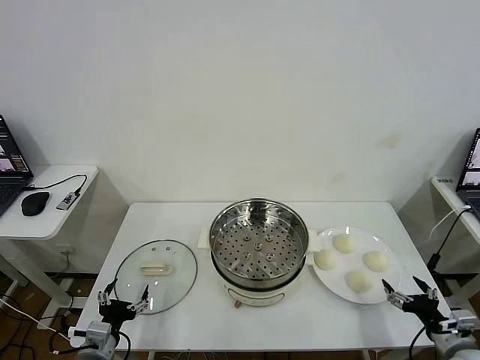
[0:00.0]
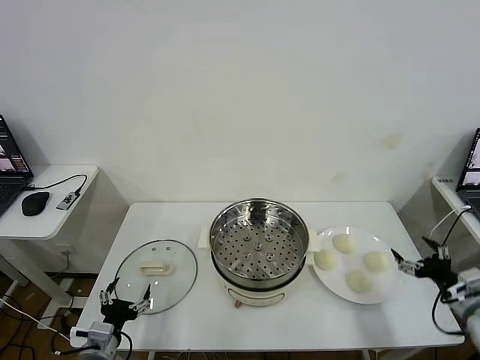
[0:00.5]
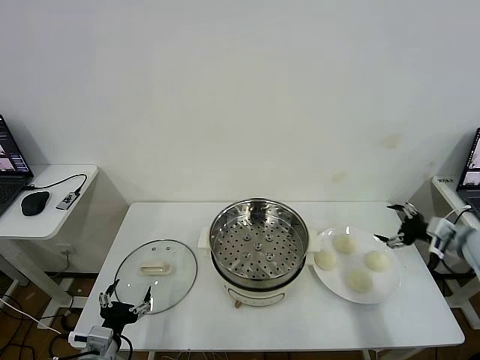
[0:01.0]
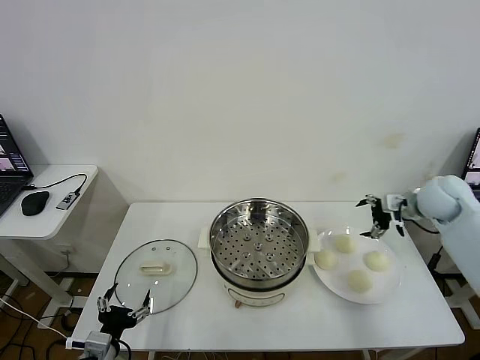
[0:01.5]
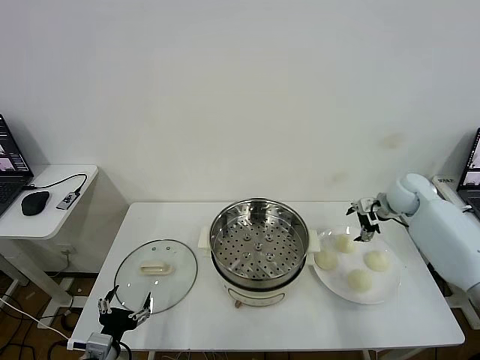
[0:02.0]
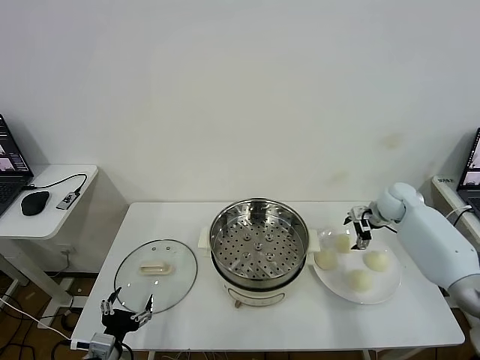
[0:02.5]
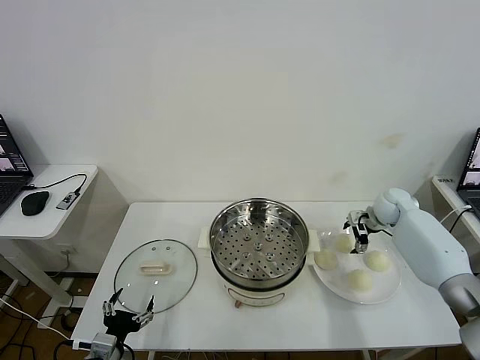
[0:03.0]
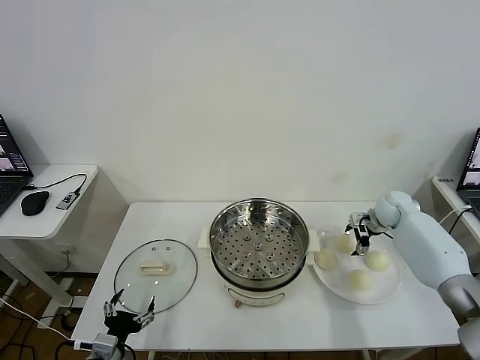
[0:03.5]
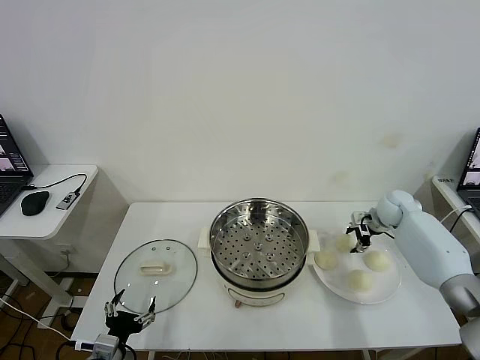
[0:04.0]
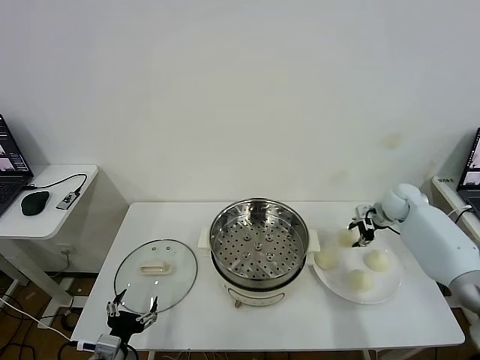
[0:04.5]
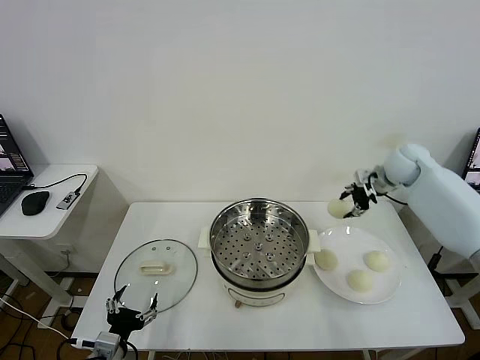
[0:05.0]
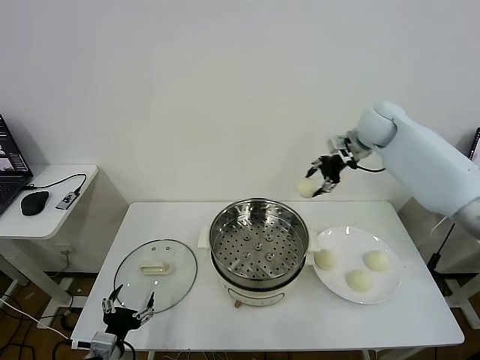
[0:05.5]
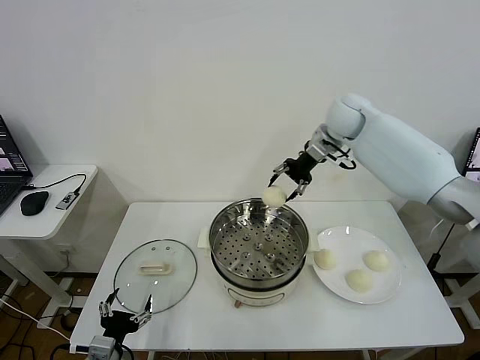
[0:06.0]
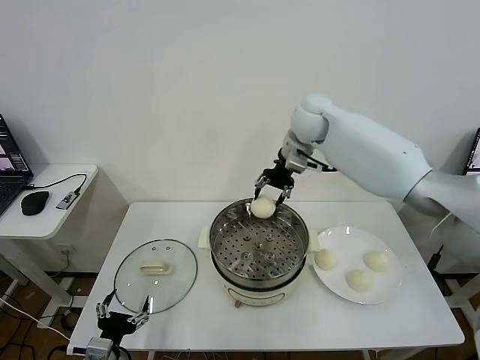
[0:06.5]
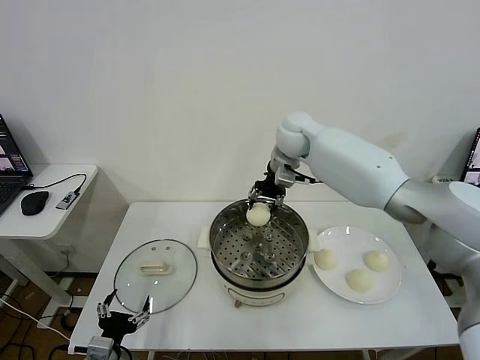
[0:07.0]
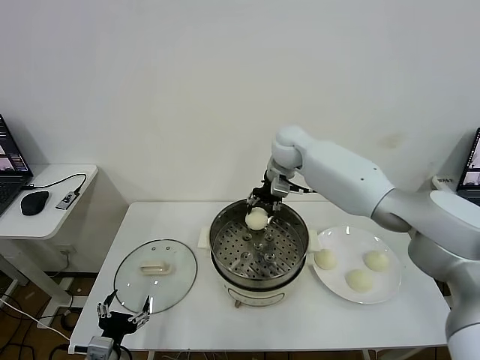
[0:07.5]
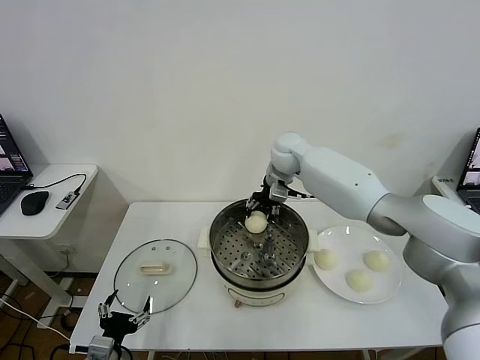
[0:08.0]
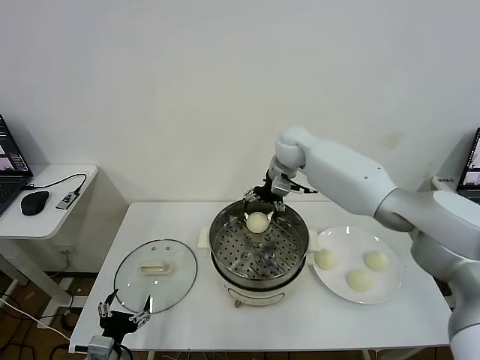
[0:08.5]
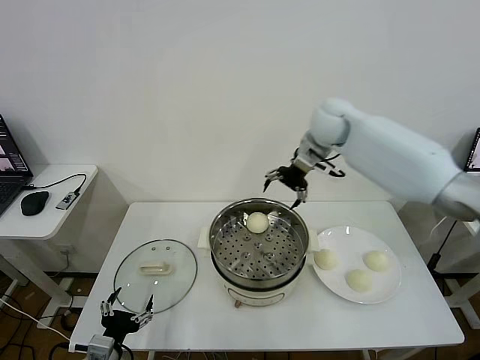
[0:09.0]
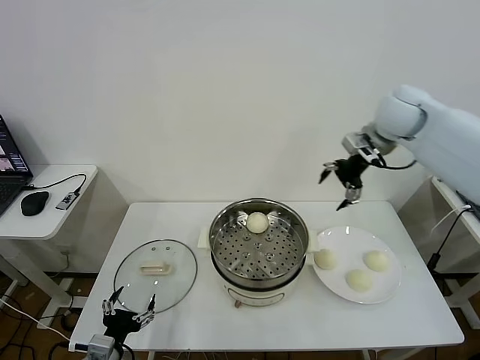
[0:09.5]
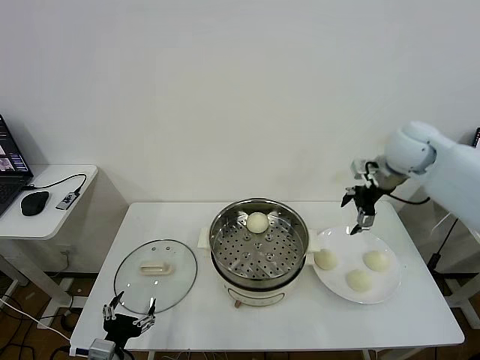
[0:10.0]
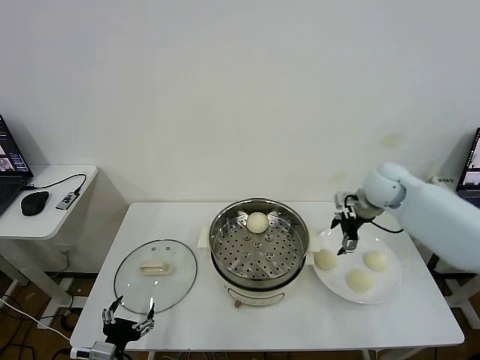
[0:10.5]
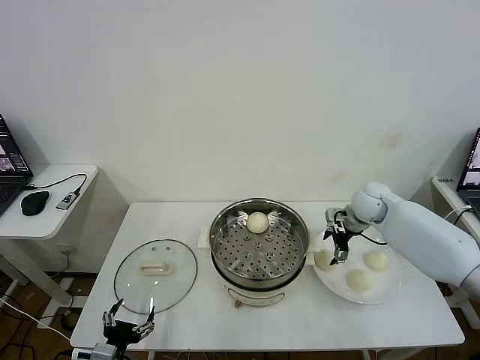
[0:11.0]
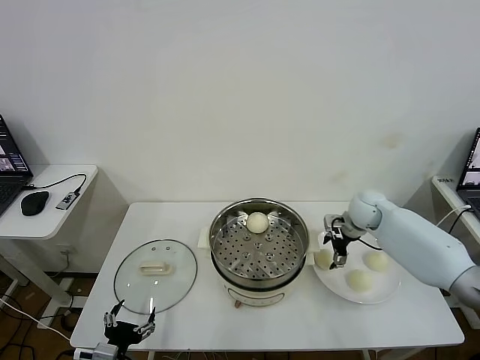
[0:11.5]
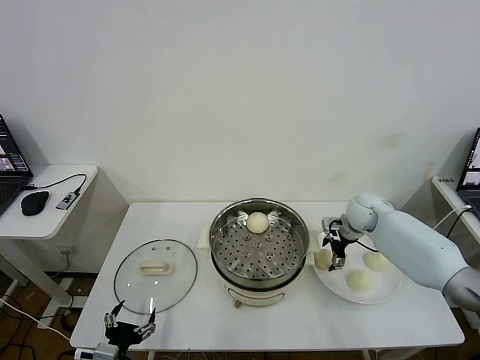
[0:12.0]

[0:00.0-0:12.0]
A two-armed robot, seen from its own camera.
Task of the whole recording: take steamed baozi put them in steamer then cover it.
Step, 0:00.0 to 0:04.0: Grasp the baozi in the plate with right gripper.
Step, 0:04.5 to 0:08.0: Place the baozi on the steamer with right gripper.
0:02.0 to 0:04.0: The right gripper is displaced downward by some 5 cm, and closes.
0:04.0 to 0:06.0: The right gripper is displaced upward and to the left by about 30 cm.
0:06.0 to 0:08.0: The right gripper moves downward and to the left, about 15 cm.
0:08.0 to 0:10.0: The right gripper travels to the right and backward by some 25 cm, and opens.
0:10.0 to 0:12.0: The right gripper is displaced downward by some 20 cm.

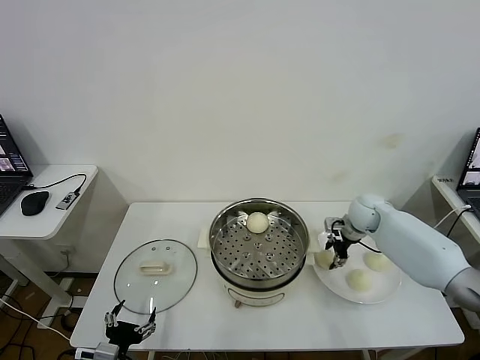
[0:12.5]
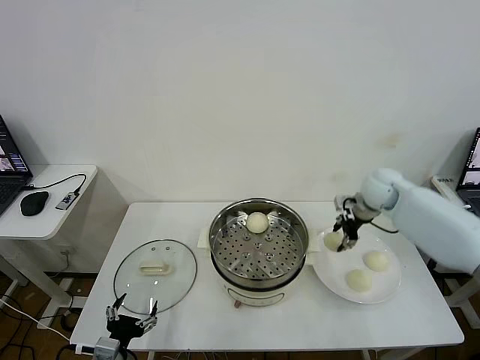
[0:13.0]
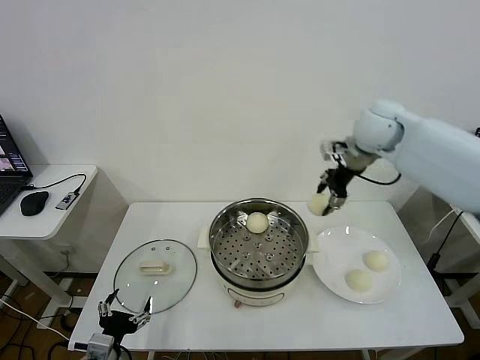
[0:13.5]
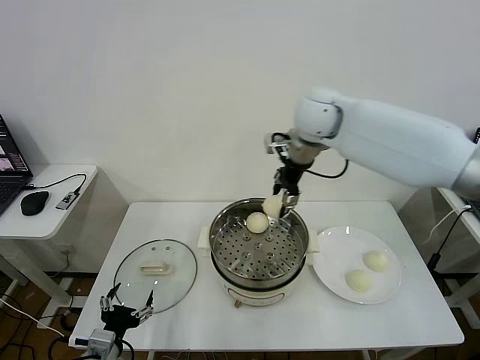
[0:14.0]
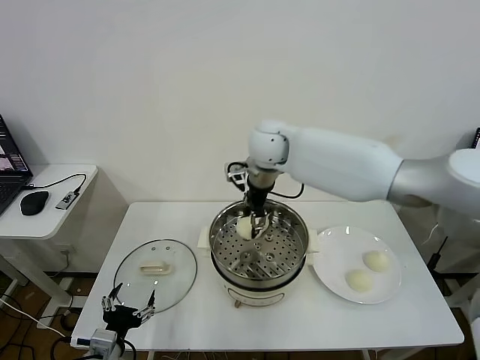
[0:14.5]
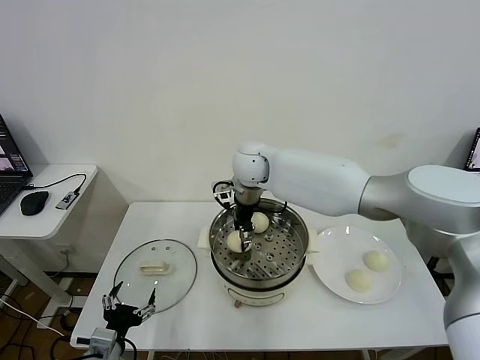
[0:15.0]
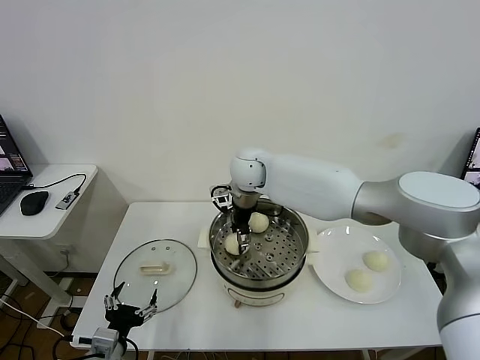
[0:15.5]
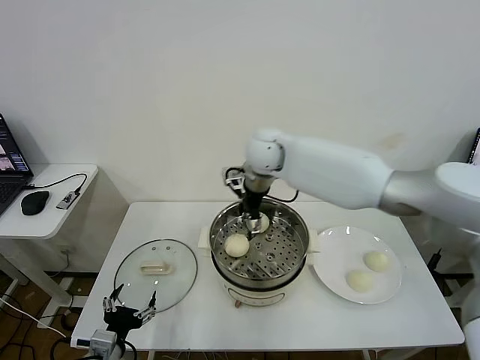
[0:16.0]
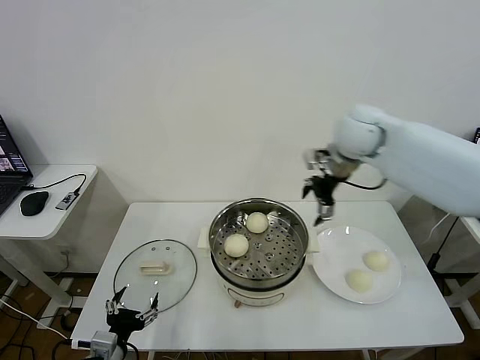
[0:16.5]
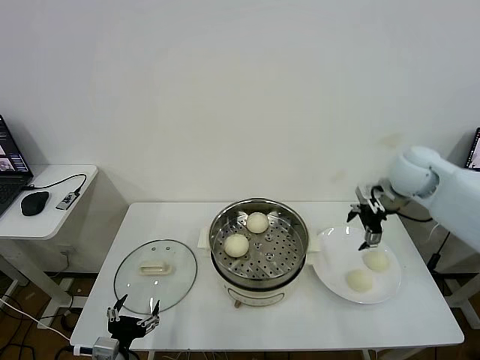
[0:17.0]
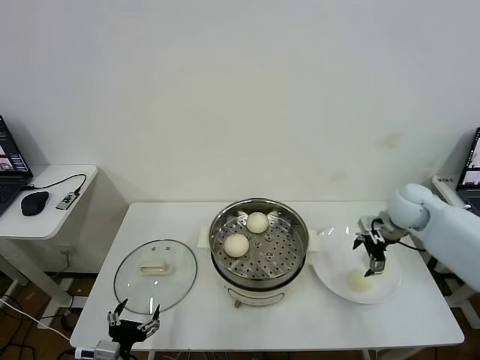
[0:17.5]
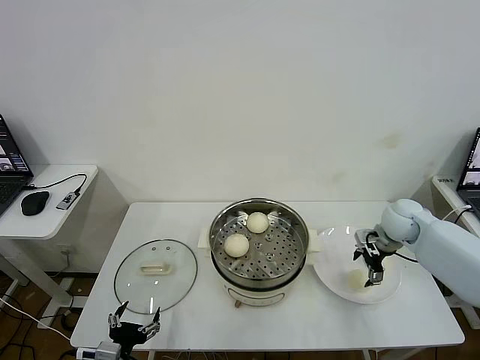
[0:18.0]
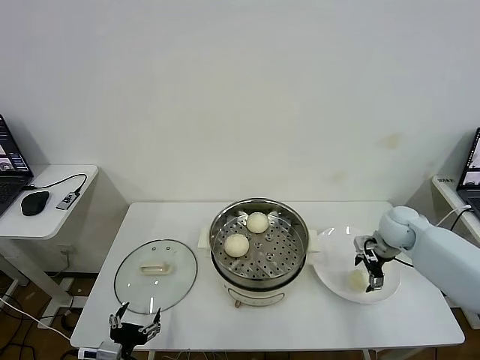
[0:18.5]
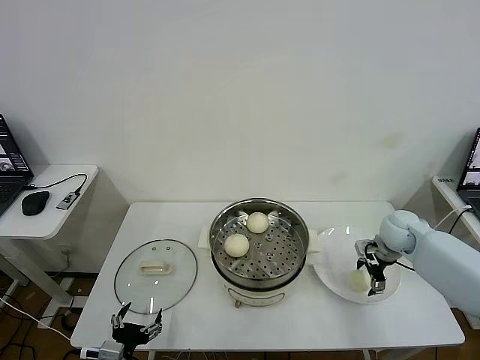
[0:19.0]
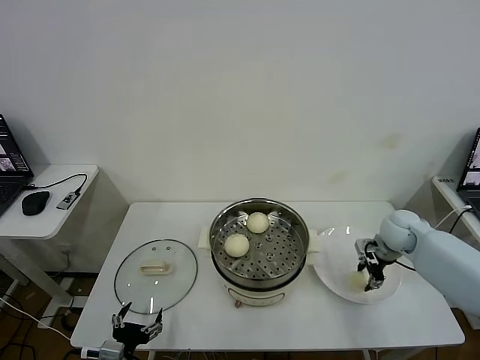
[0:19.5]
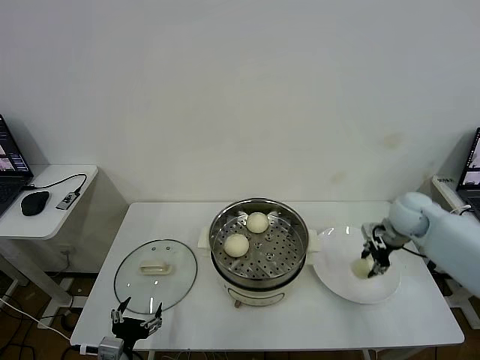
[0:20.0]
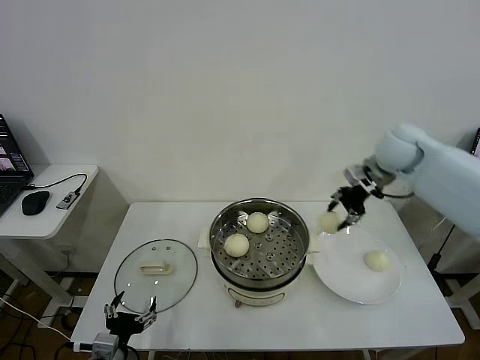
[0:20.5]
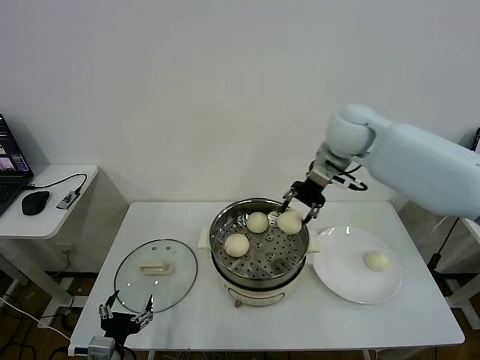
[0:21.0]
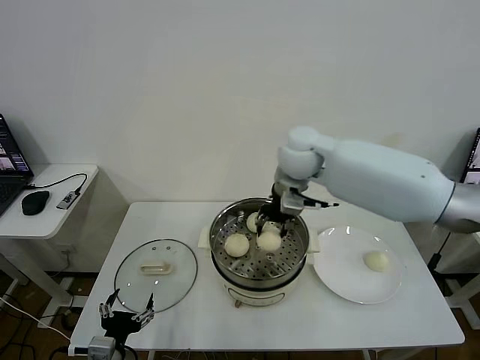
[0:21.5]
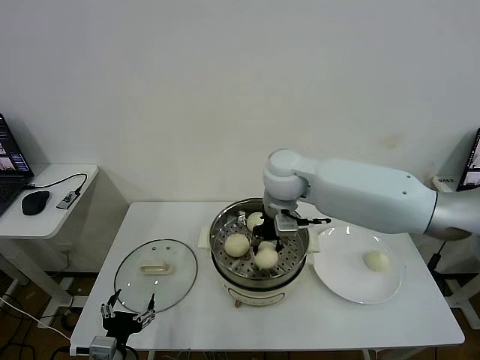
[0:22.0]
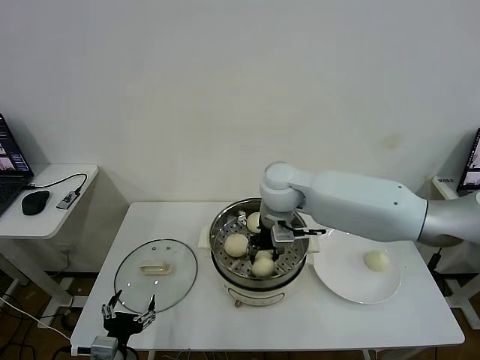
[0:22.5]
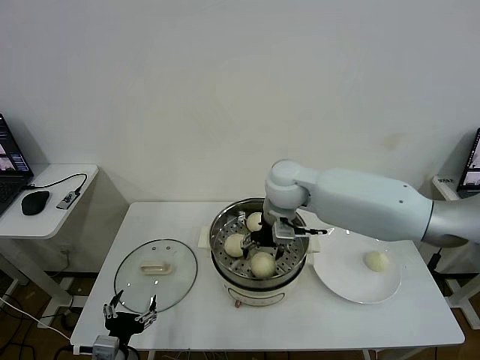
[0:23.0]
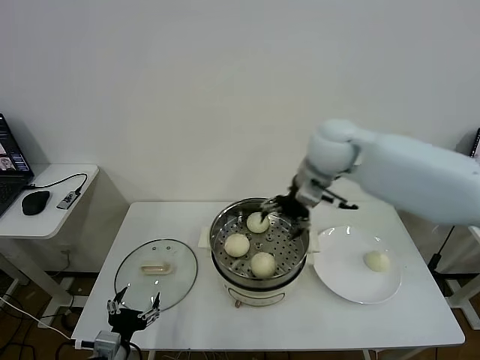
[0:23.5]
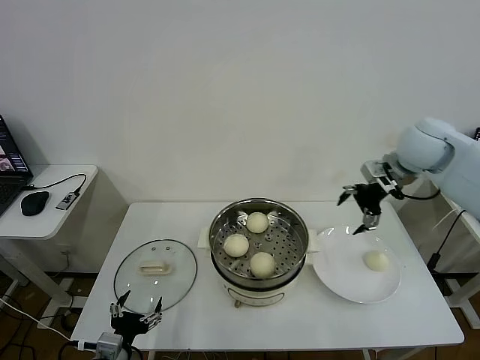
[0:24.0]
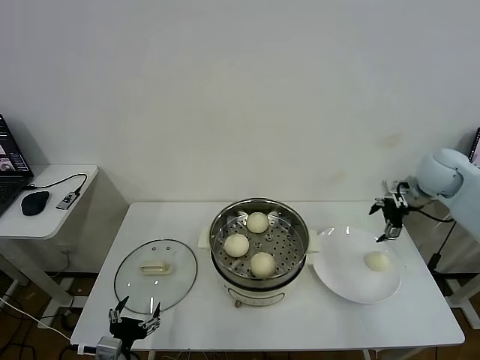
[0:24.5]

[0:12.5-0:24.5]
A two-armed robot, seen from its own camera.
Task of the whole recording: take steamed baozi put them in steamer then cover it.
Step, 0:13.0 to 0:15.5: Place the baozi on the steamer with right gripper.
Step, 0:16.0 to 0:19.5: Grasp the baozi in the plate with right gripper.
Step, 0:20.0 to 0:23.0: Place the baozi on the steamer with right gripper.
0:12.5 to 0:14.5: The right gripper goes some 35 cm to the left and upward.
0:14.5 to 0:16.5: The right gripper travels to the right by some 20 cm, and opens its fingers.
0:16.5 to 0:18.5: The right gripper goes roughly 25 cm downward and to the right.
0:18.5 to 0:20.5: The right gripper shifts about 20 cm upward, and closes.
0:20.5 to 0:22.5: The right gripper shifts about 25 cm to the left.
0:22.5 to 0:24.5: The right gripper is displaced to the right by roughly 35 cm, and opens up.

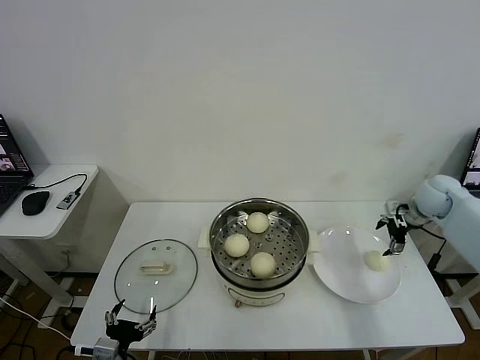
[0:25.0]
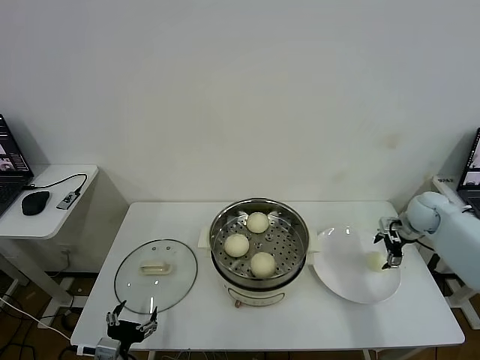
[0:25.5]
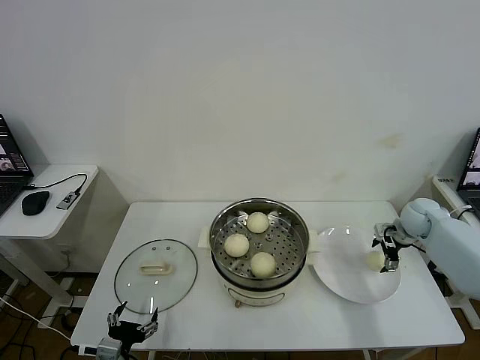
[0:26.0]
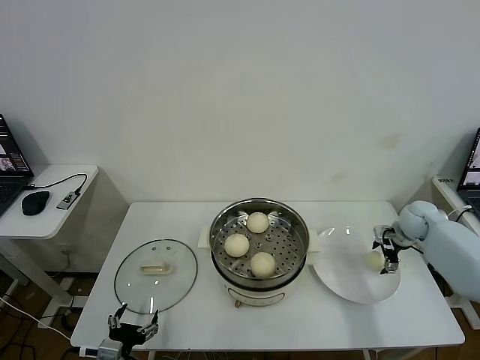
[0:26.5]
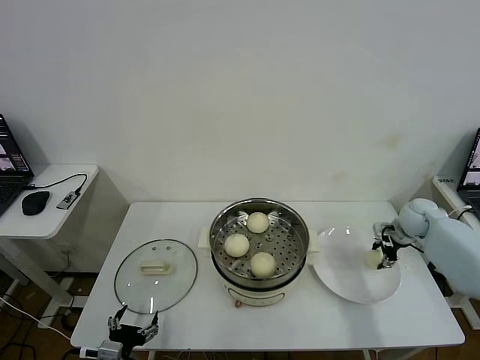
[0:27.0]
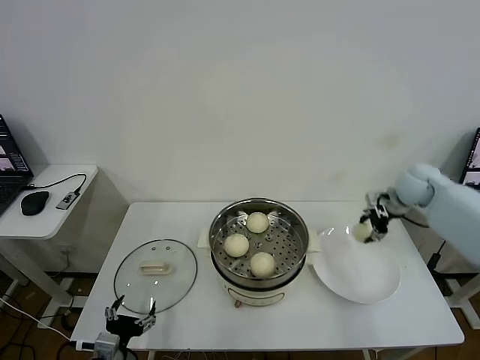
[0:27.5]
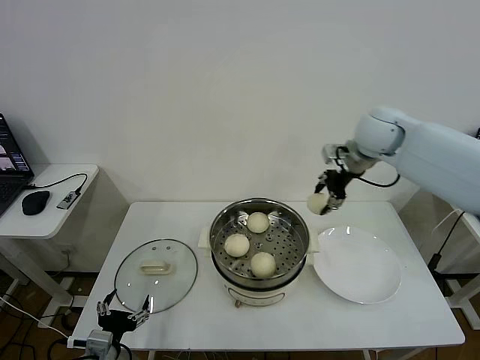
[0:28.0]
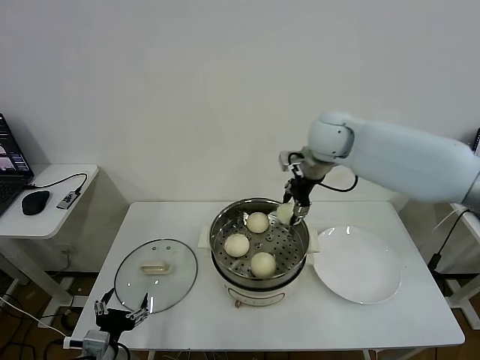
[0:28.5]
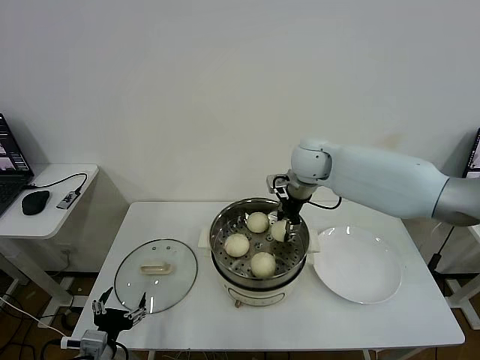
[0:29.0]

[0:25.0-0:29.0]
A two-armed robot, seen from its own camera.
Task of the whole recording: take steamed baozi put them in steamer then cover it.
Step, 0:25.0 to 0:27.0: Grasp the baozi in the plate with right gripper.
0:25.0 to 0:27.0: The right gripper shifts about 10 cm downward, and closes its fingers.
0:27.0 to 0:29.0: The right gripper shifts about 35 cm to the left and upward.
